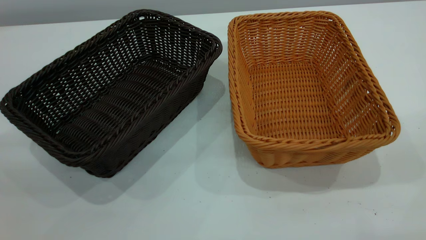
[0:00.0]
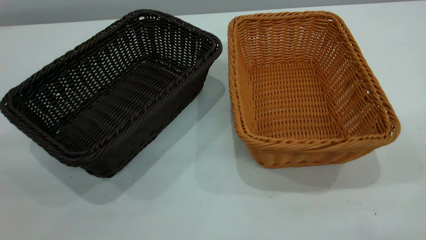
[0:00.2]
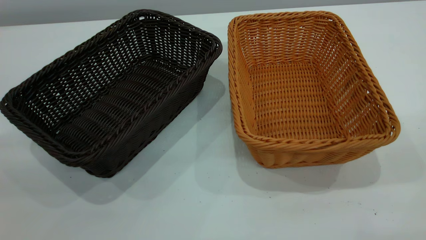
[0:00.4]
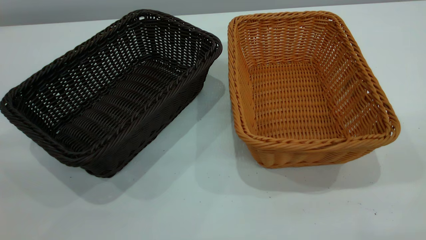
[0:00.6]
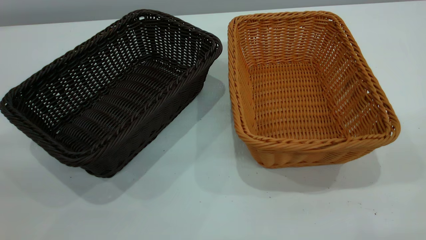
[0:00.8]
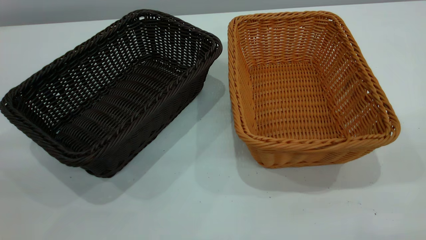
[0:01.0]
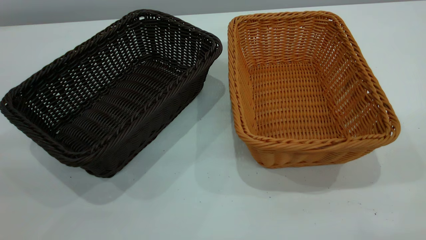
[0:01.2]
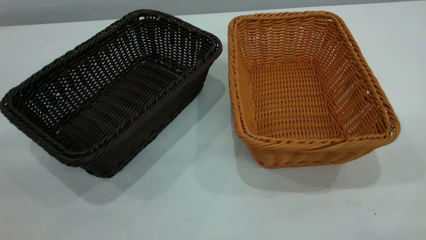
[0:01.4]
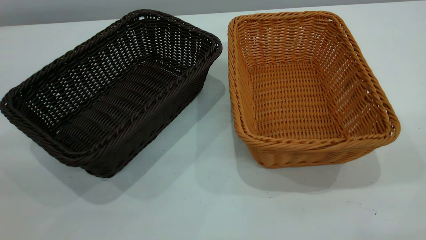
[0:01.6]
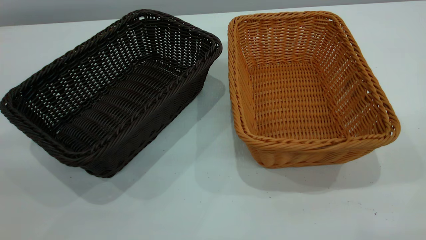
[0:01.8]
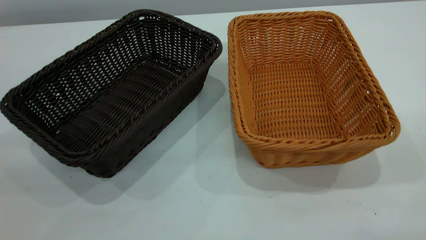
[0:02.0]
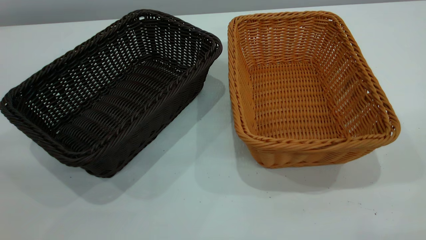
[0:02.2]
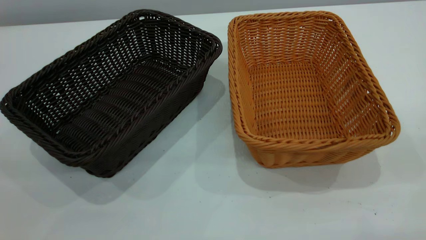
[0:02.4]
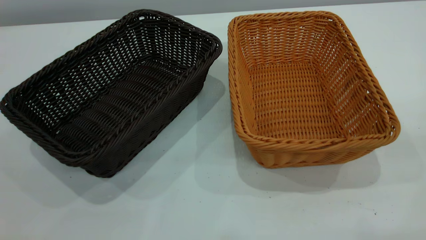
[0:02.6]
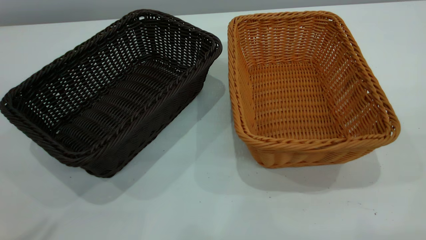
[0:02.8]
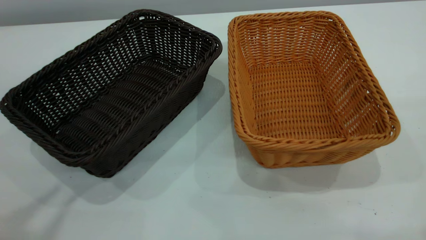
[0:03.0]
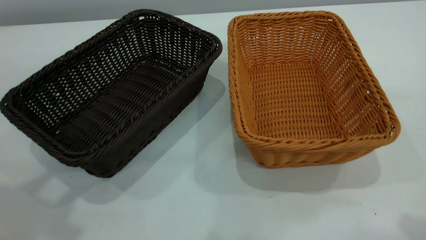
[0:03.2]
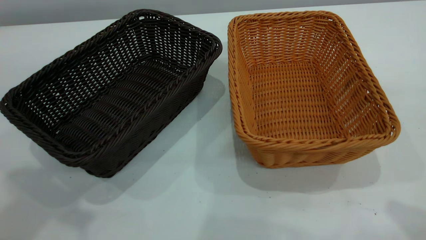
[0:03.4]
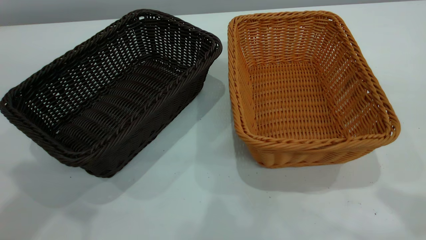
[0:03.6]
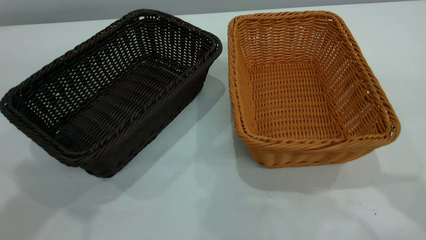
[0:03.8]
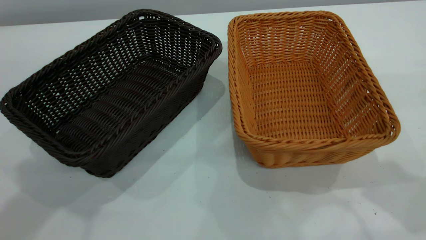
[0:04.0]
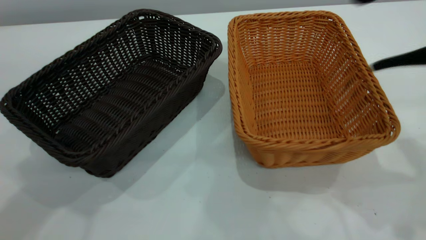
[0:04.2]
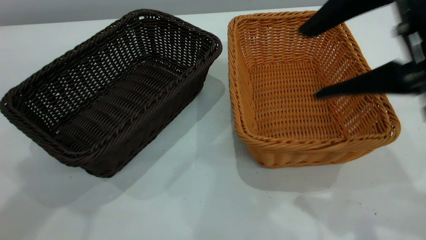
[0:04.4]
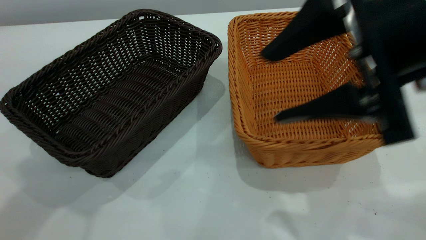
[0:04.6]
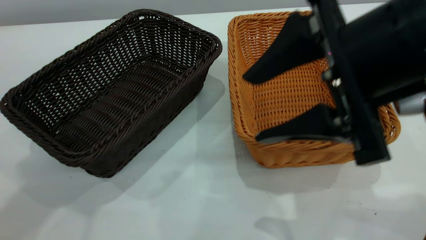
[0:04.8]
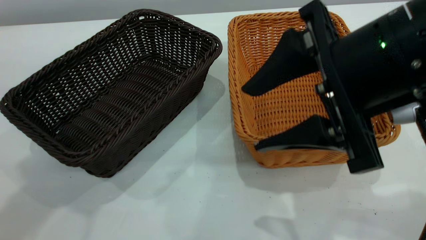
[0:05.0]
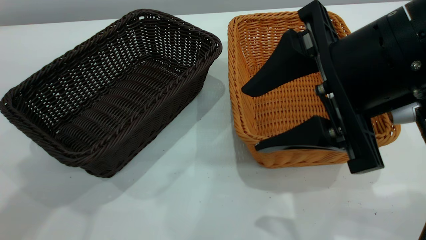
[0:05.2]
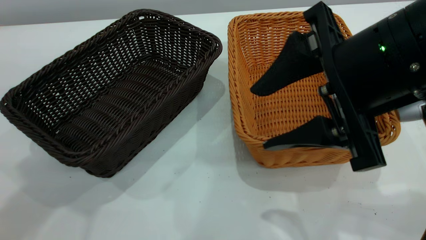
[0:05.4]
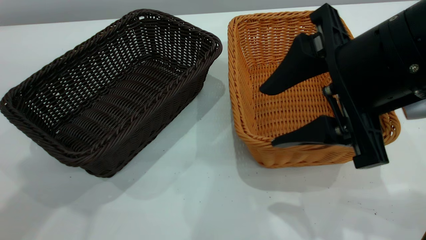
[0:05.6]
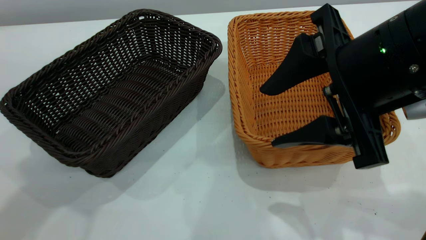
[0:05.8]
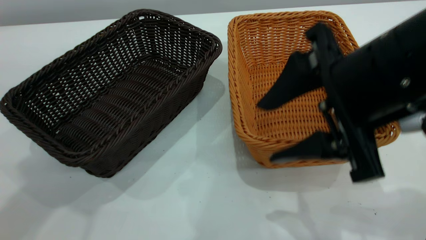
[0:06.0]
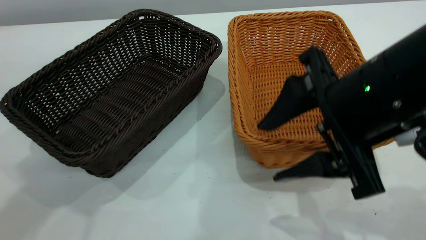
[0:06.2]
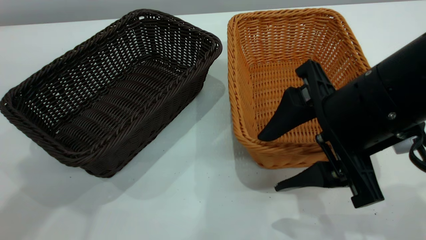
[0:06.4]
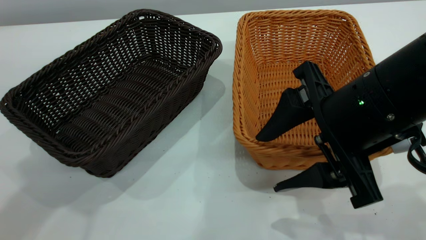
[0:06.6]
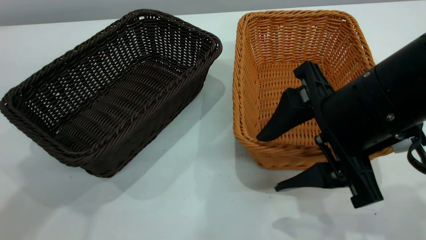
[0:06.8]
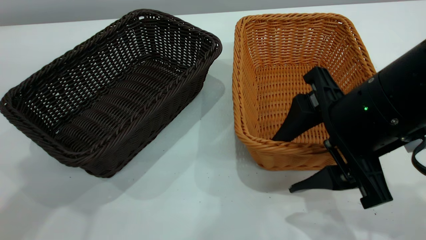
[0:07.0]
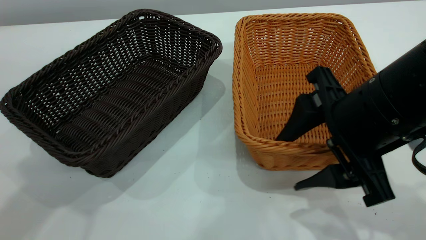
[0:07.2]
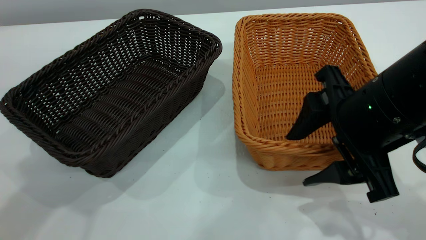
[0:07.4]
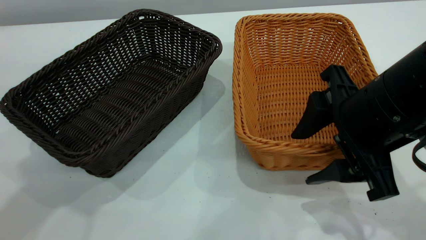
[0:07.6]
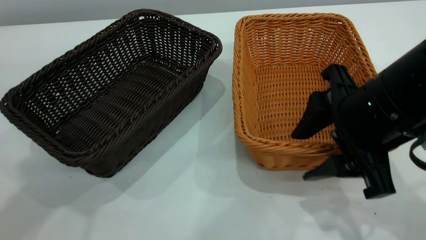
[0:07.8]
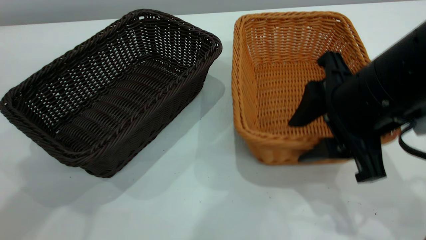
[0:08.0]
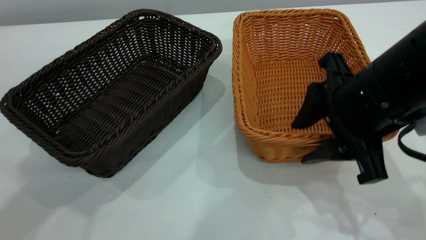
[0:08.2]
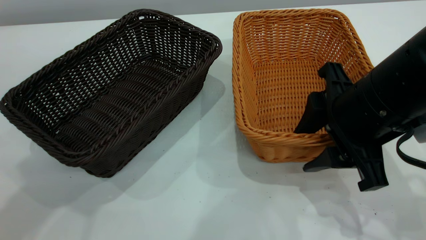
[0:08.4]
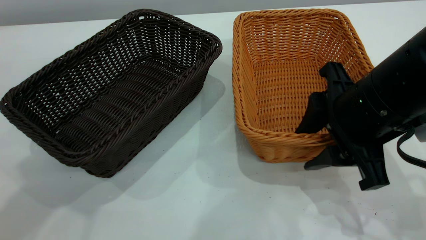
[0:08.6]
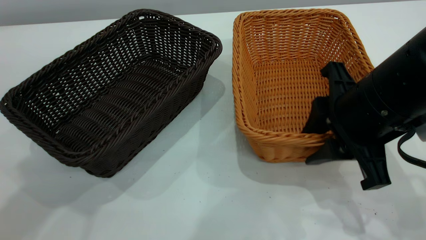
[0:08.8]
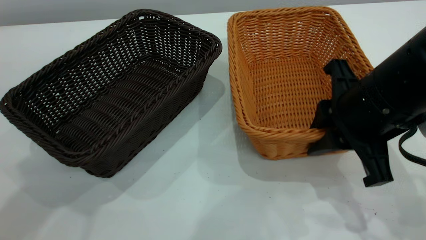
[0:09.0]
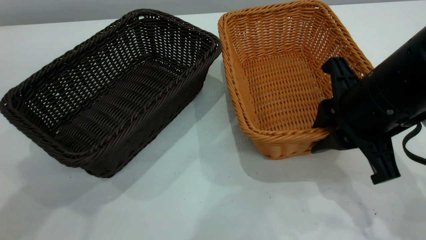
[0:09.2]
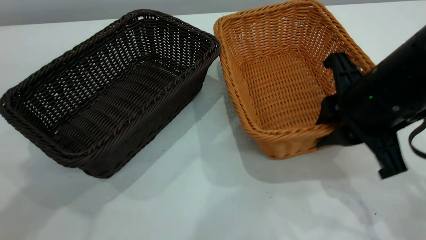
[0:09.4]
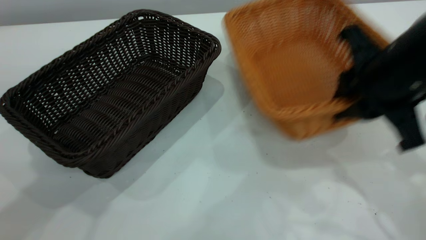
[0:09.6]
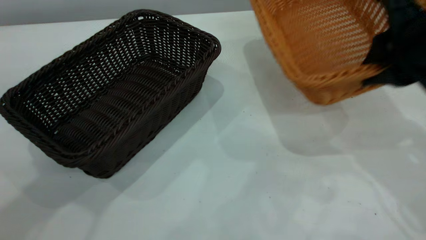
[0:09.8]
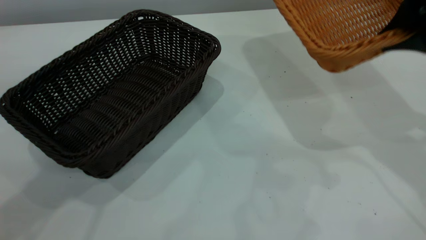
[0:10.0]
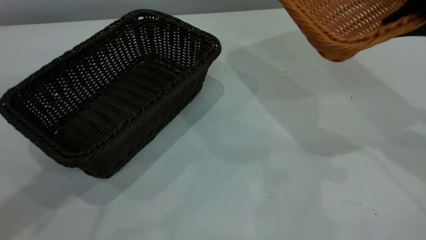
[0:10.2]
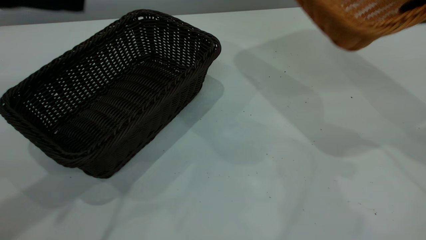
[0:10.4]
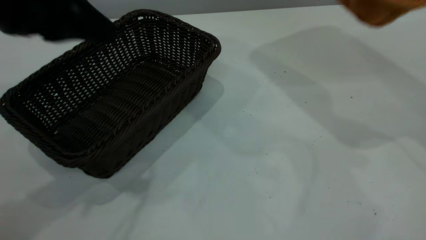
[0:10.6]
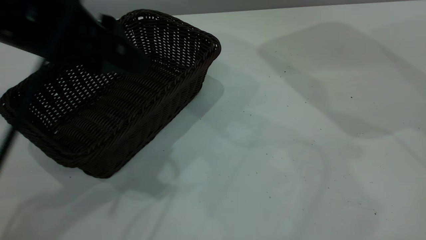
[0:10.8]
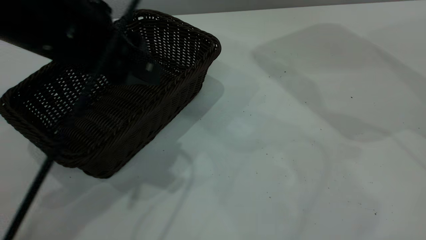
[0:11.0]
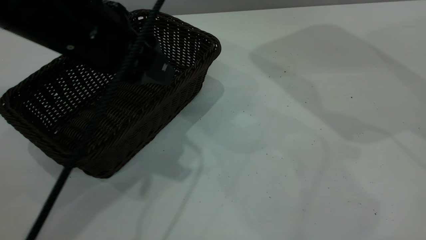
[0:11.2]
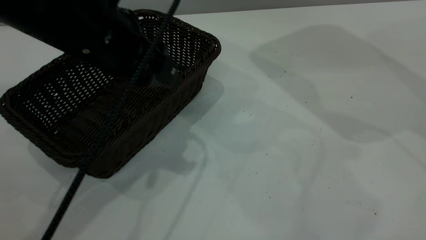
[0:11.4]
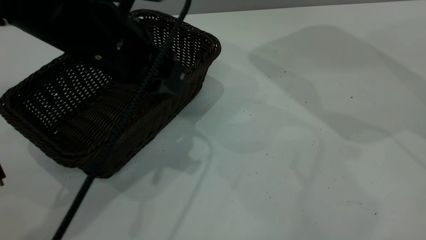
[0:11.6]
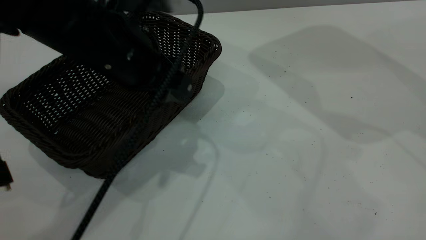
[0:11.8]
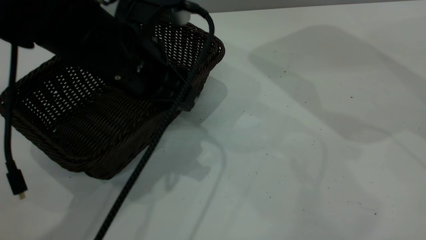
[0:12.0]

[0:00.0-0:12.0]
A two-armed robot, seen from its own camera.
Task of the whole recording: the left gripper grasp the black basket and place it in the center of the table, the right gripper grasp the brown basket and place it inside the black one.
Step, 0:00.0 to 0:09.4: Pick up the light basket with the right gripper.
0:00.0 to 0:01.6: Both grippers stay about where they are.
0:03.0 to 0:04.4: The right gripper travels forward, downward and to the left by some 20 cm, and opens.
0:04.4 to 0:06.0: The right gripper travels downward by roughly 5 cm.
0:06.0 to 0:07.6: There are only small adjustments of the grippers.
0:07.6 to 0:09.0: The right gripper closes up.
0:09.0 to 0:10.4: The right gripper is displaced to the right and upward by about 15 cm, while the left gripper heads downward, covering about 10 cm.
0:10.4 to 0:12.0: The right gripper shifts by some 5 cm. The left gripper heads downward and to the right, covering about 15 cm.

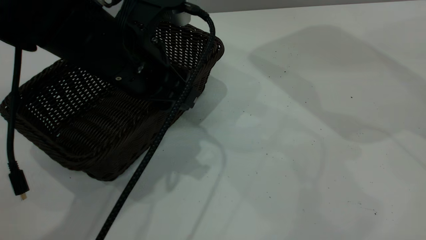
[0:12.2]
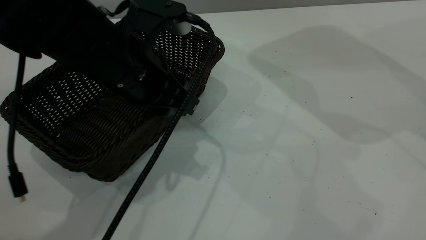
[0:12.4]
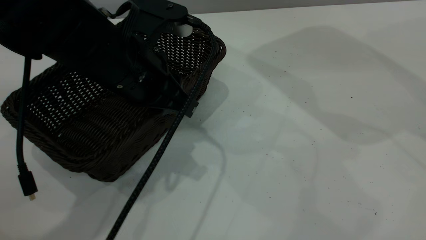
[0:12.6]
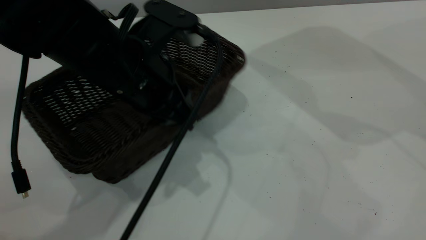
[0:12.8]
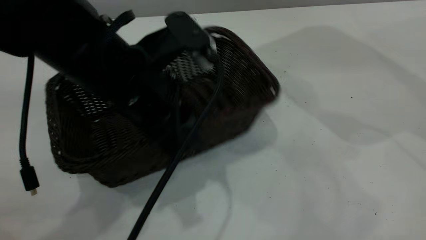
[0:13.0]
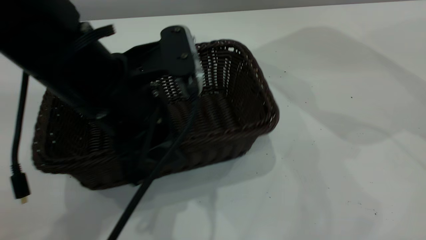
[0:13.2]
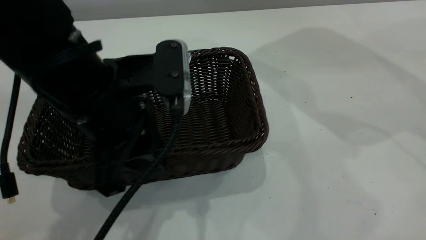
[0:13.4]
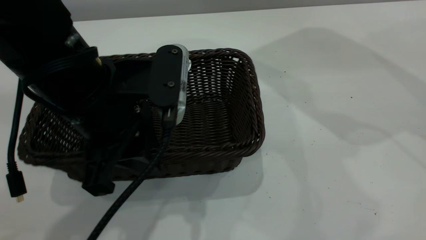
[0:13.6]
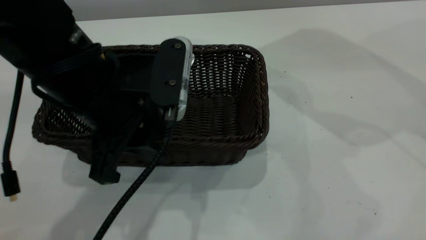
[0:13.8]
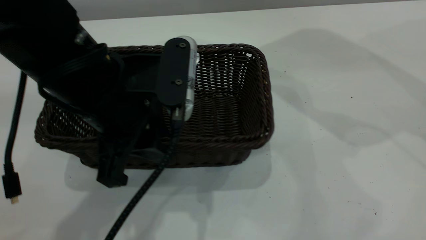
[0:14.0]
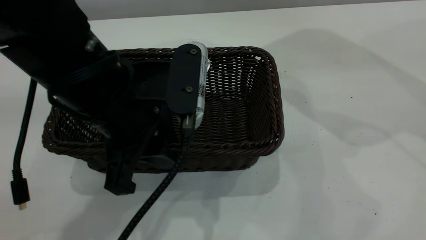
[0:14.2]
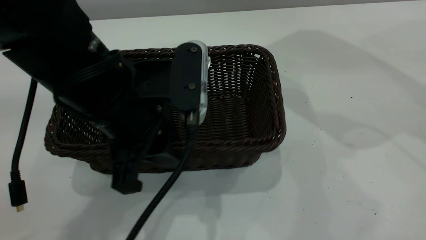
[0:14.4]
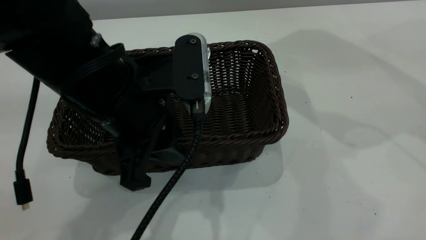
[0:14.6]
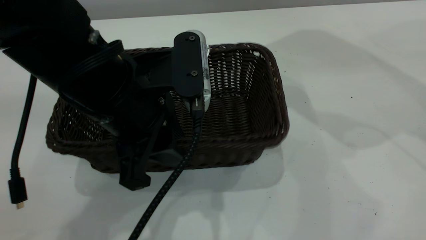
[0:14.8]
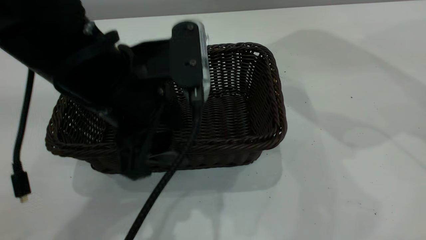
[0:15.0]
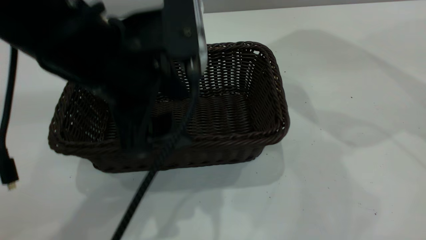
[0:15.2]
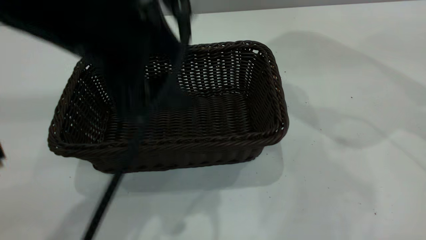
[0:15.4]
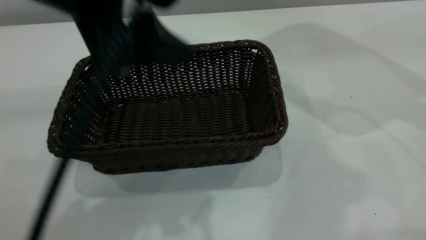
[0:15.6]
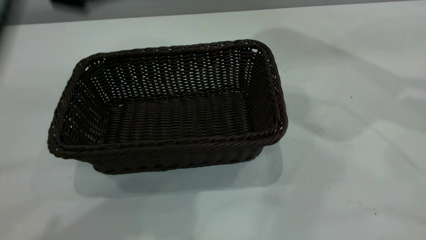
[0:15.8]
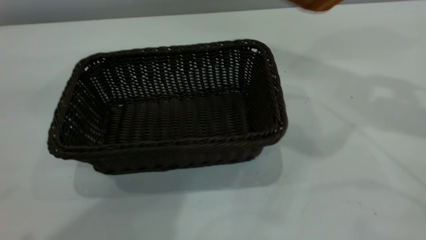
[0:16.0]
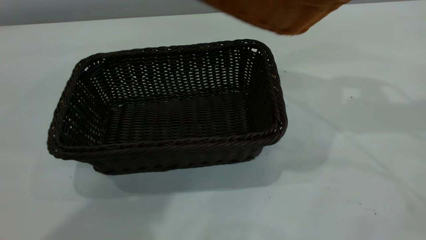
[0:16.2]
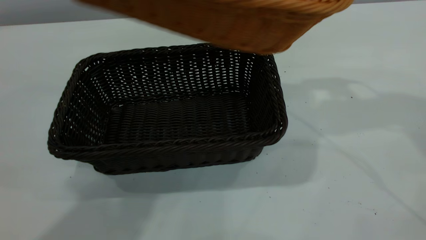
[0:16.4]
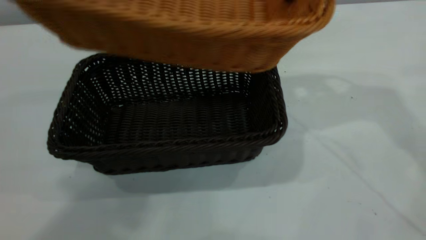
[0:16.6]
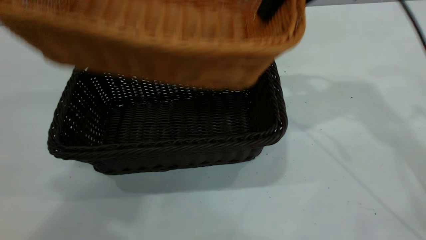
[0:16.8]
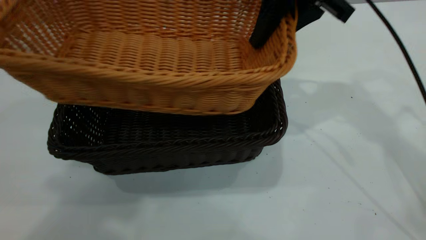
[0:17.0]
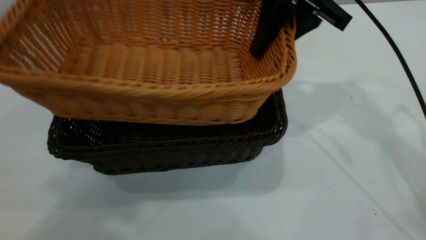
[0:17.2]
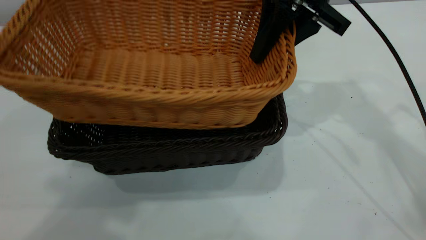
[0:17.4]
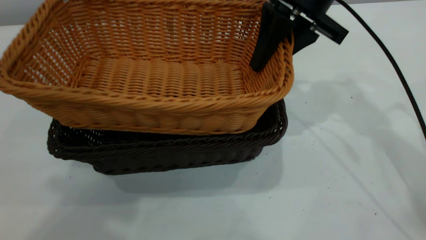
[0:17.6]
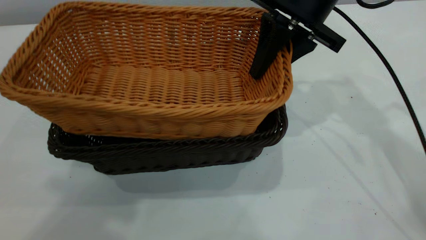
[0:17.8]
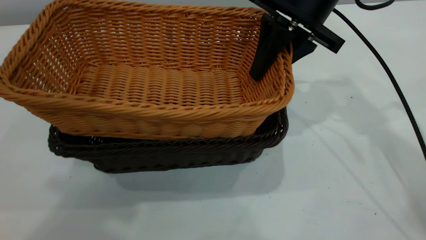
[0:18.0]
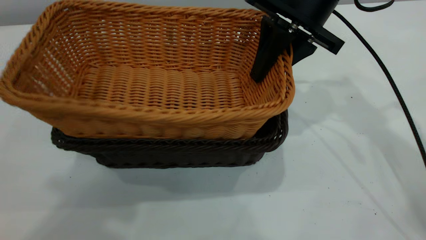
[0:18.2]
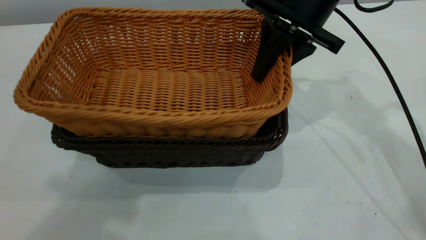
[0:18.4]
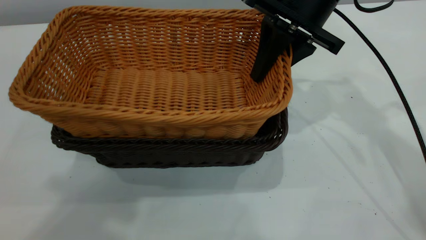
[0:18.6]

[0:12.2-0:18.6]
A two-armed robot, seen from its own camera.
Task of the whole recording: the left gripper grasp the black basket and place it in the center of the table, the right gripper grasp the brown basket and place it inside the black one.
Step, 0:12.2 to 0:15.6: Move the dark basket to the center of view.
0:12.2 to 0:13.8: The left gripper closes its fingers.
0:13.8 to 0:15.4: The left gripper travels upward by roughly 10 cm, and opens its fingers.
0:15.4 to 0:17.0: The left gripper goes about 20 cm upward and to the left. Meanwhile the right gripper goes some 20 cm to the left and forward.
